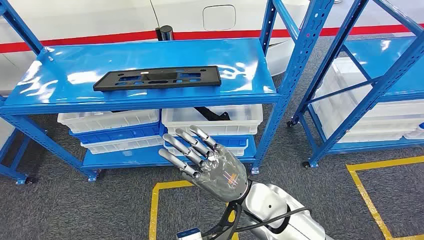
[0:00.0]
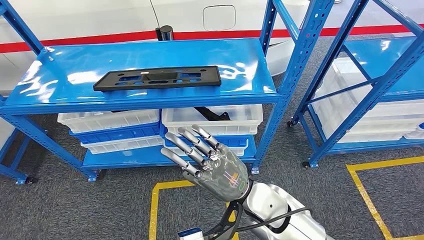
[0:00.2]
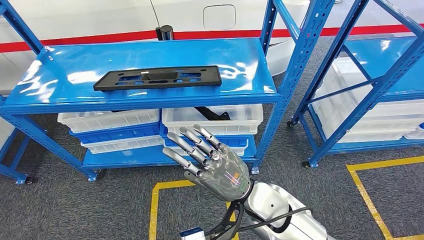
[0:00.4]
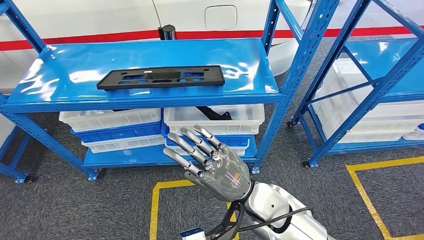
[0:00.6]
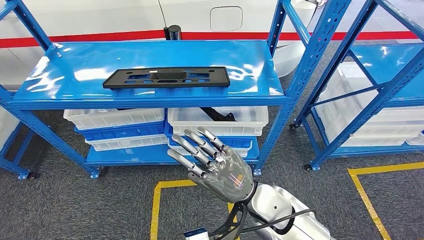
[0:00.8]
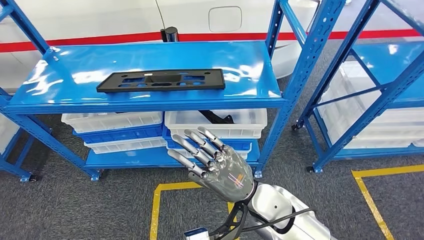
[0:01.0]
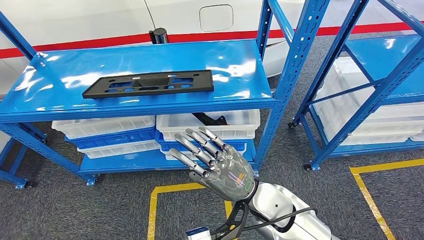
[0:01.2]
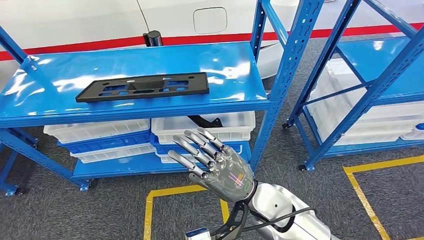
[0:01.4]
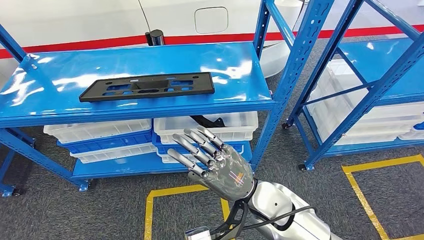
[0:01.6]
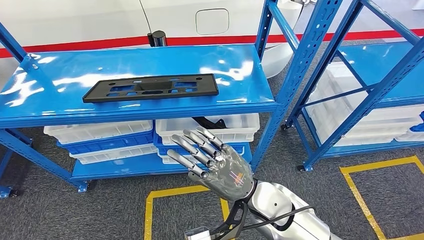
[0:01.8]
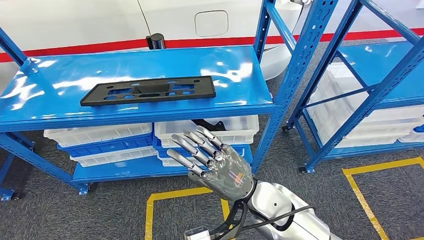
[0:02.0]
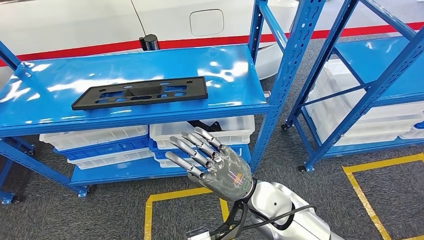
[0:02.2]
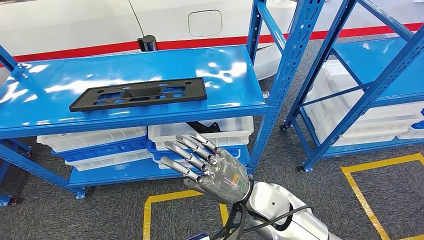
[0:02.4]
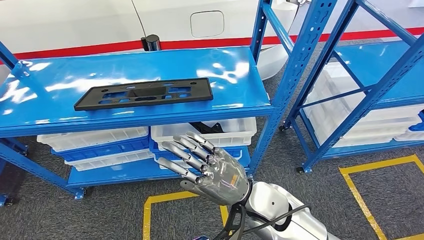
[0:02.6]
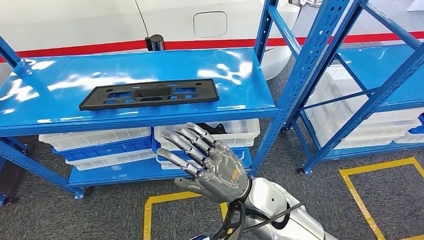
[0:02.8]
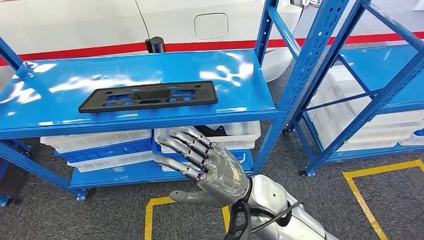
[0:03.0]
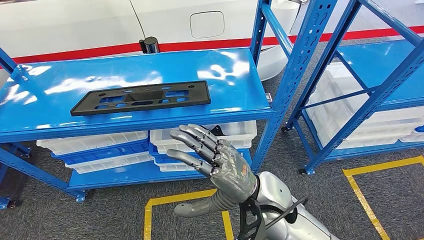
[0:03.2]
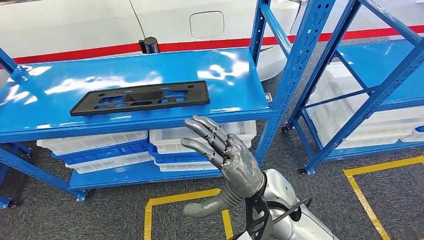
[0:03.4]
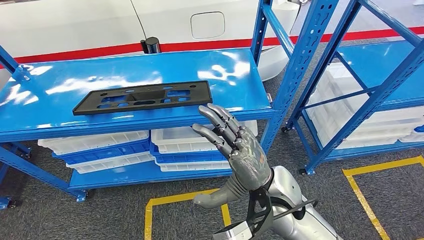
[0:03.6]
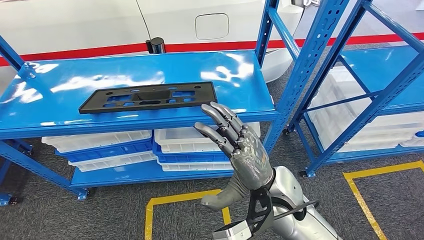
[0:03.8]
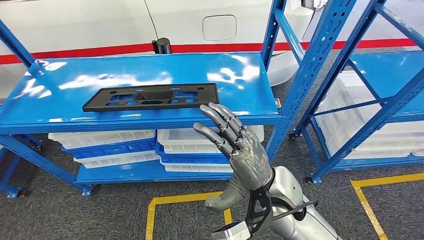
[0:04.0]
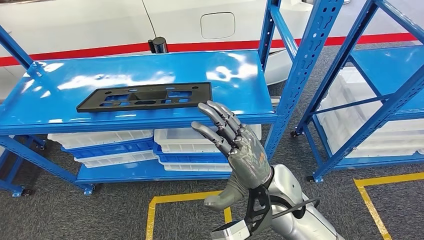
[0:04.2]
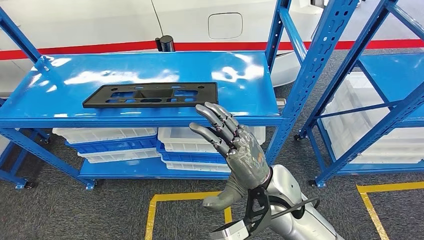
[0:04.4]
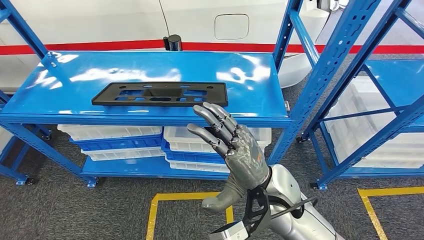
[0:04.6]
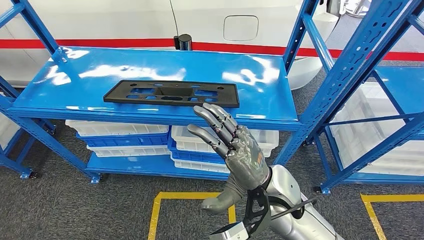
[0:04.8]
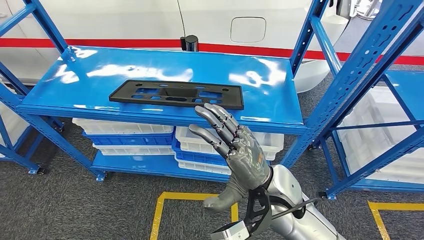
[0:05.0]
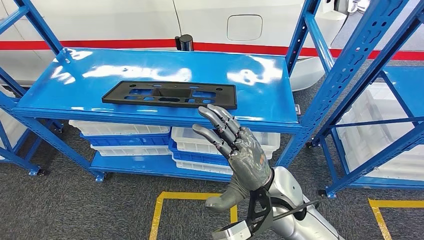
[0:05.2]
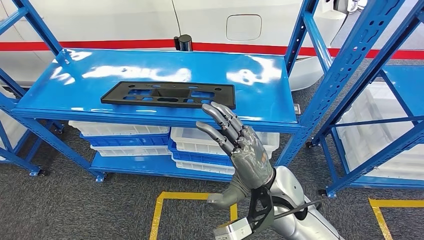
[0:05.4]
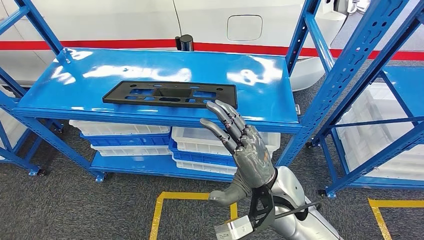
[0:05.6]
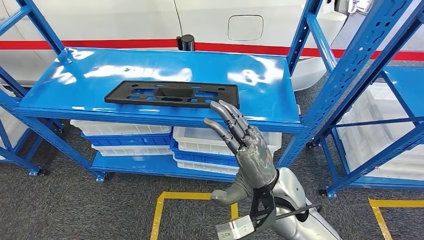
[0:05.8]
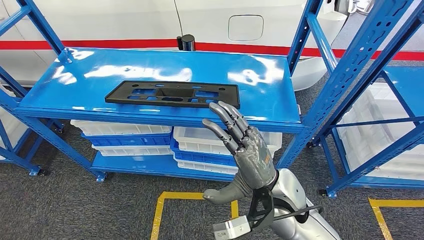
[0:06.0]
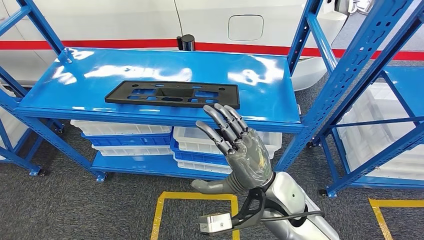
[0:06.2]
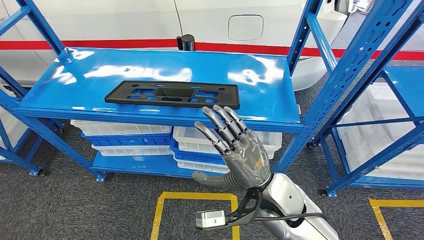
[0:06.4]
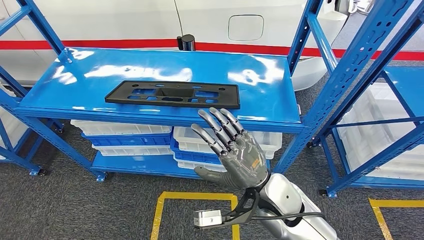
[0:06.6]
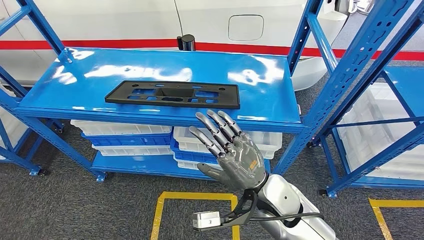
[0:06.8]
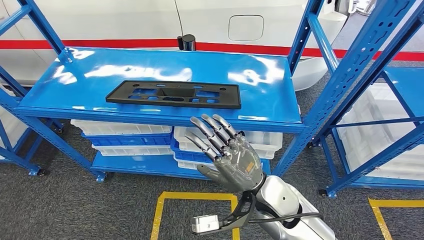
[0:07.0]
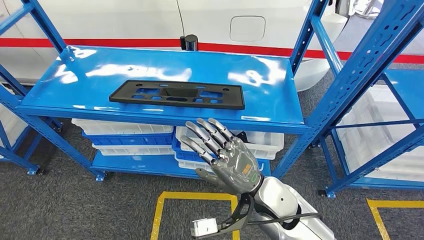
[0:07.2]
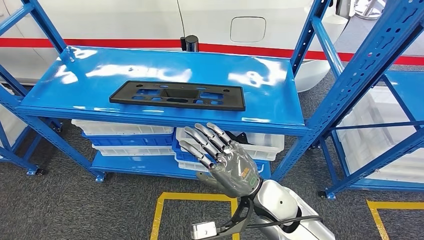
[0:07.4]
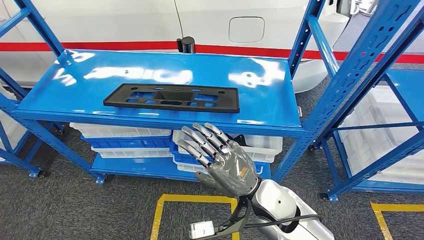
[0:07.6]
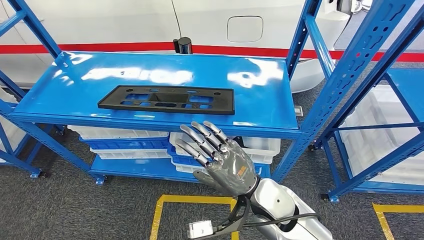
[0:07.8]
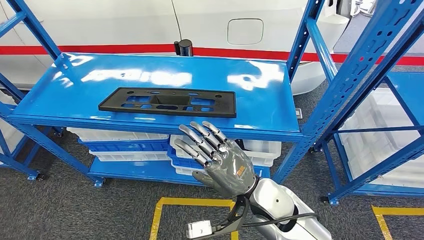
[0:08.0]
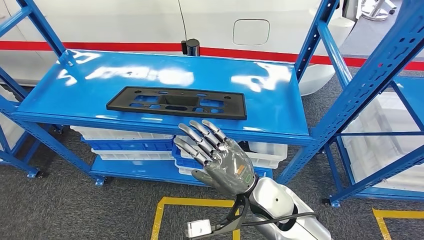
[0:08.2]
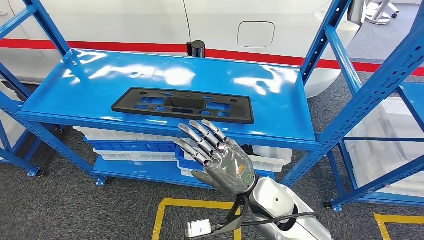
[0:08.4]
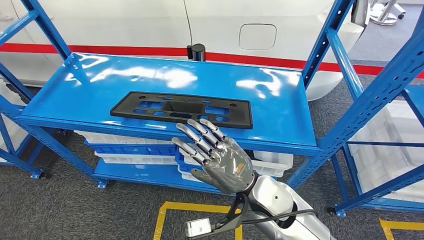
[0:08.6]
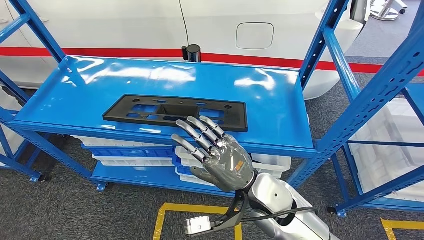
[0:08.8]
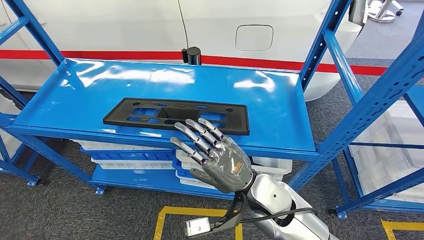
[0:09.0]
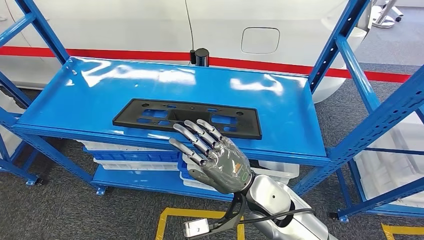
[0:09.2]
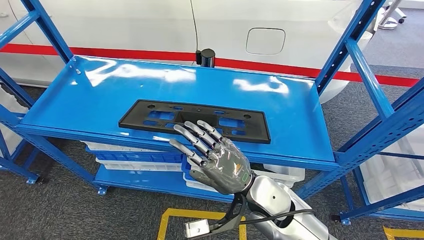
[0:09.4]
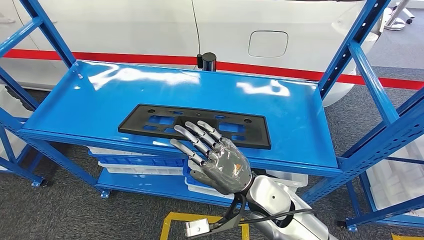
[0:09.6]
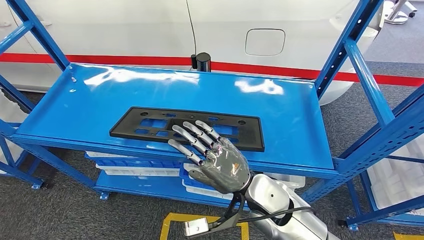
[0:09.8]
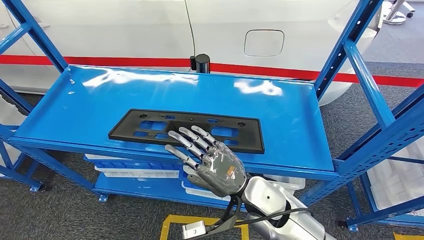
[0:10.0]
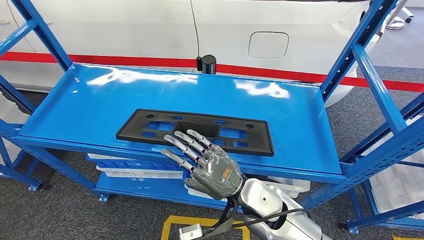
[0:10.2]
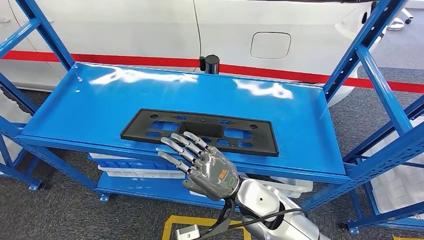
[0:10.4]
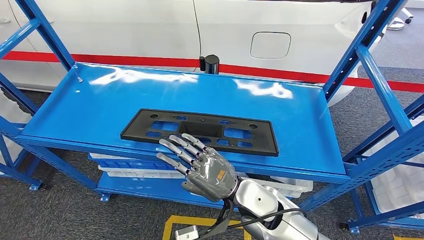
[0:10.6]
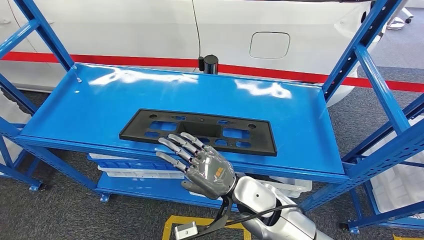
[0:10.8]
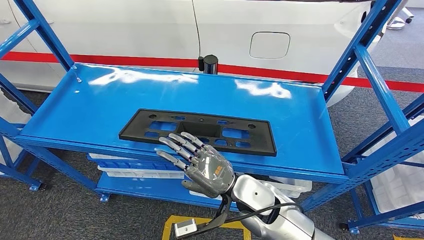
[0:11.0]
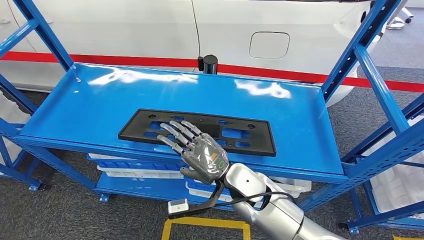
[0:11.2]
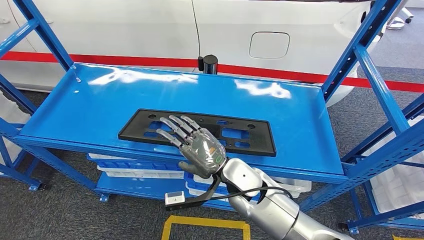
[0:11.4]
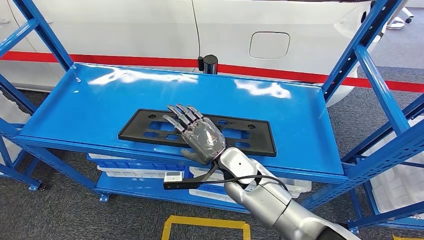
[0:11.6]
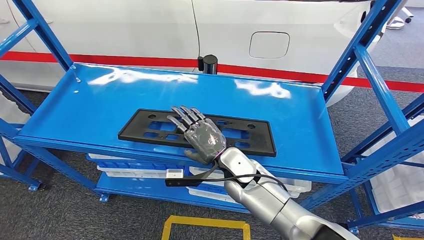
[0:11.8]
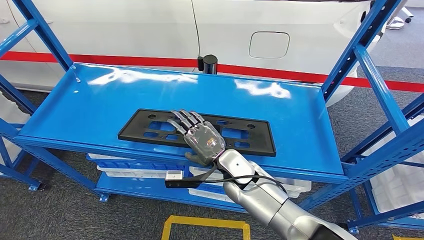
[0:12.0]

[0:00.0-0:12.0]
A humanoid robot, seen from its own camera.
0:10.4 to 0:12.0: The right hand heads forward, covering approximately 5 cm.

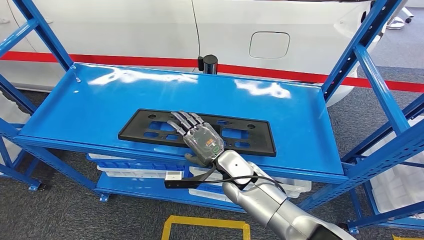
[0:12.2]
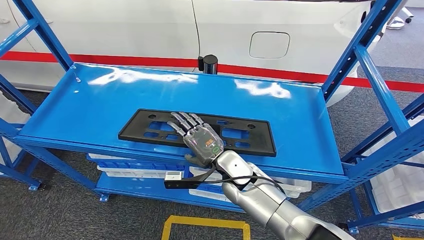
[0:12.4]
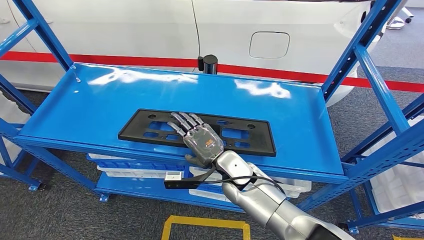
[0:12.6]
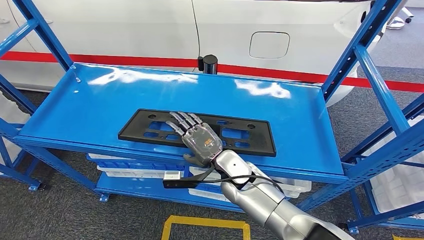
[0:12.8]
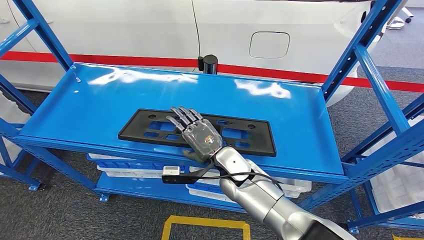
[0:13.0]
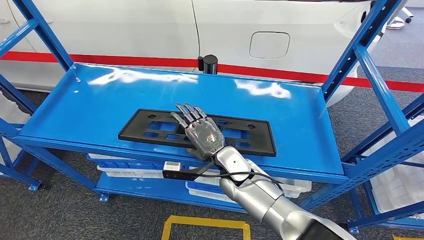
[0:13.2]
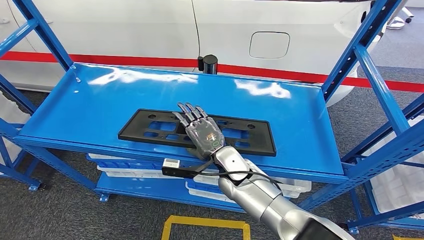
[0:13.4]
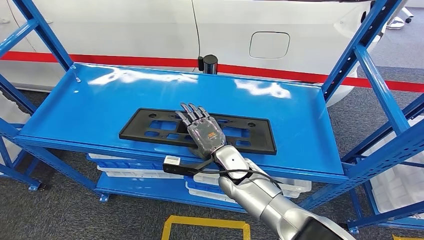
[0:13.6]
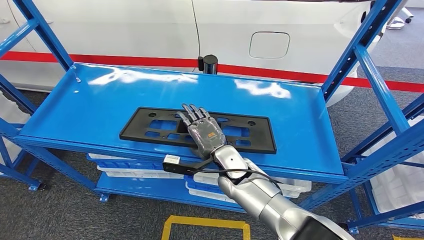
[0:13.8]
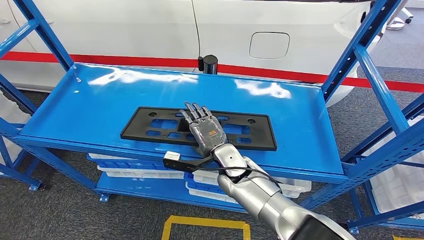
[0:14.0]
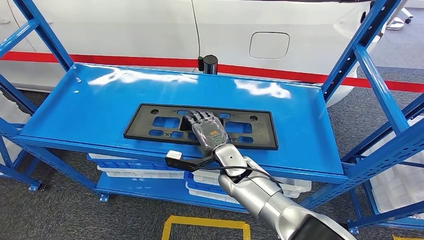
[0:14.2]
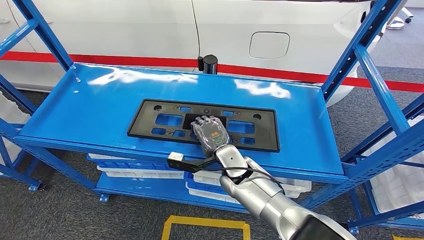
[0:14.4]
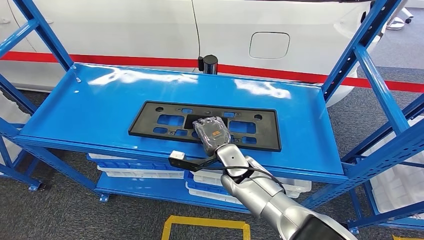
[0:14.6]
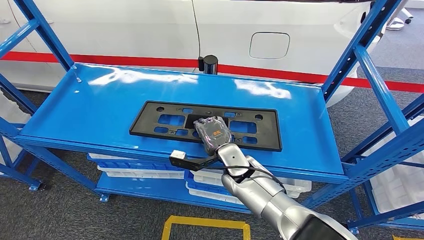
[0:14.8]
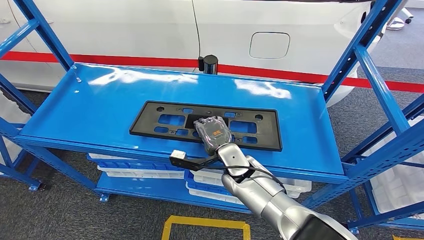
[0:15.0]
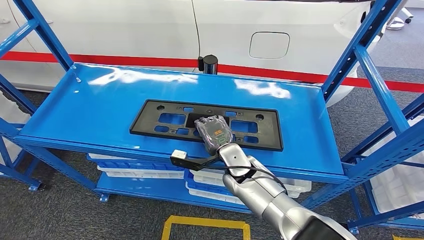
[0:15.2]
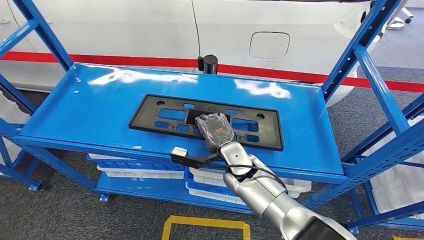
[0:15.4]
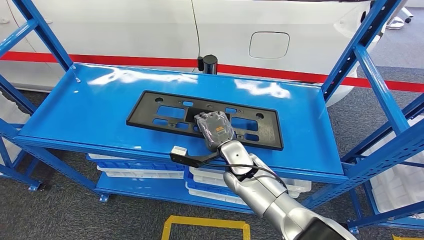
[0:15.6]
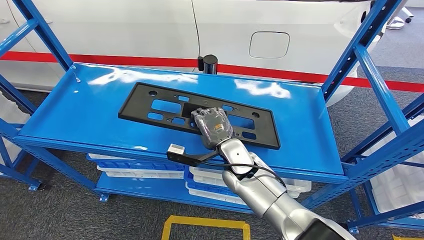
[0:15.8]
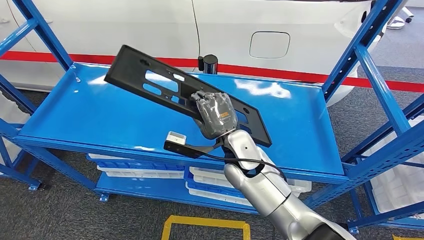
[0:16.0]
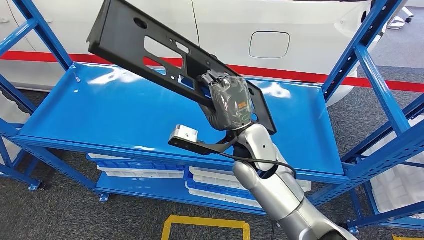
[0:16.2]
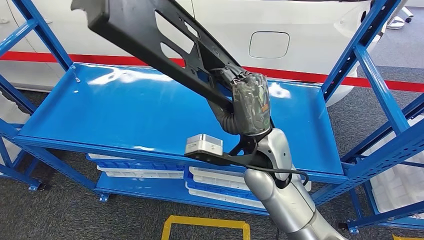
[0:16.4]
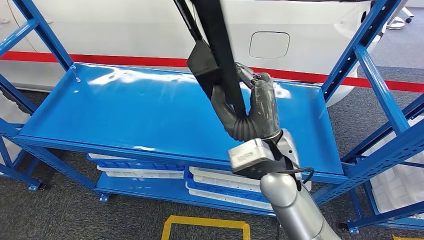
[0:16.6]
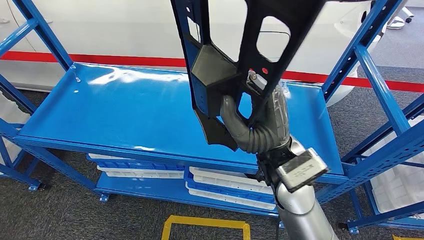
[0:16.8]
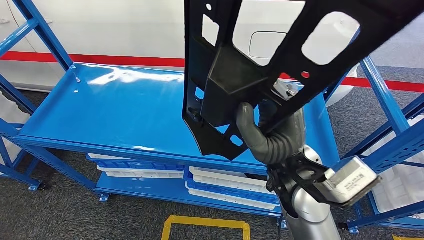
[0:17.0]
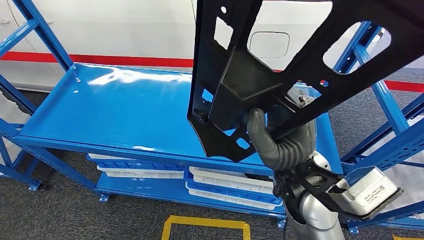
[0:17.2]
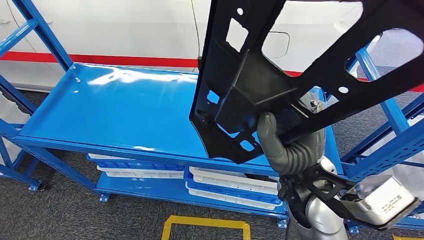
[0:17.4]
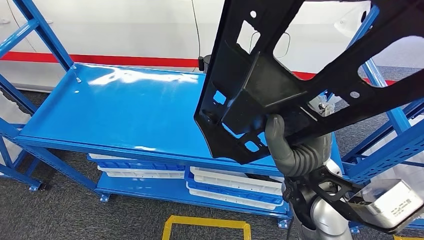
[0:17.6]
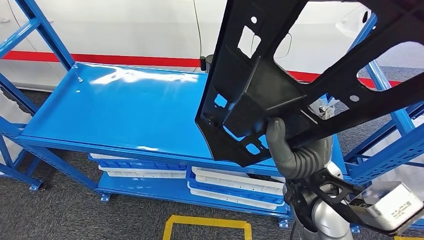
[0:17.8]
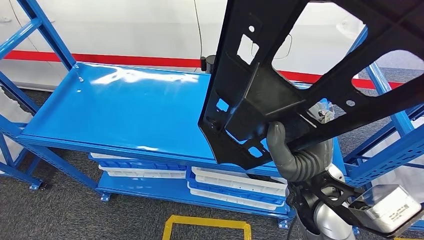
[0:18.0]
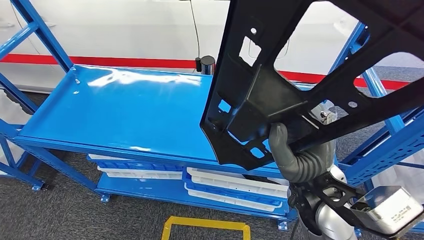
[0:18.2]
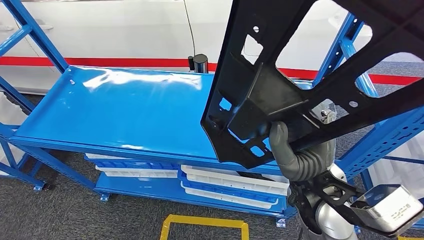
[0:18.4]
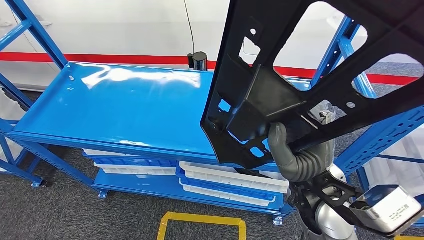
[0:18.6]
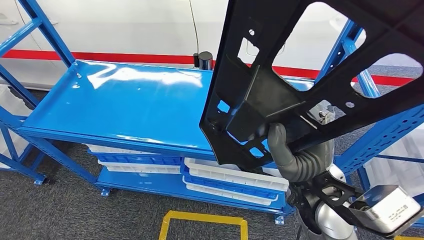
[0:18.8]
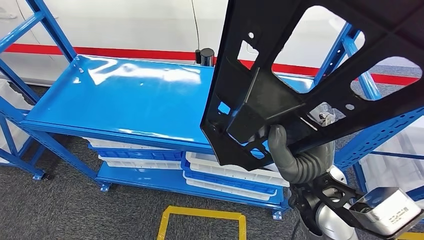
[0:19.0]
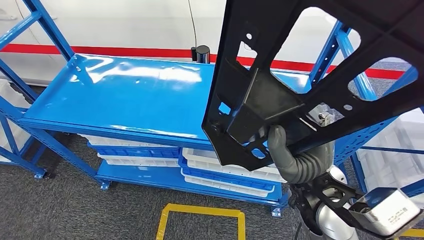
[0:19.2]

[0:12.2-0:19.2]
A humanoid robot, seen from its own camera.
0:12.2 to 0:13.6: The hands move only a little.
0:13.6 to 0:15.0: The hands move only a little.
